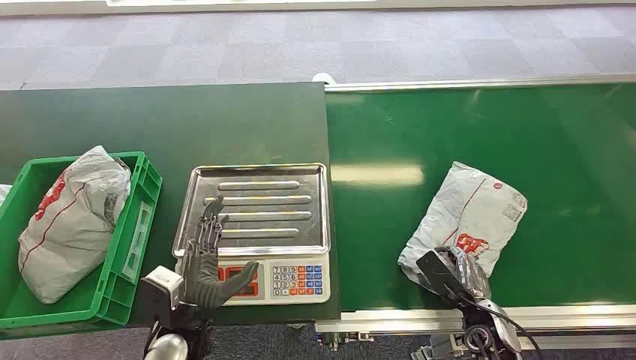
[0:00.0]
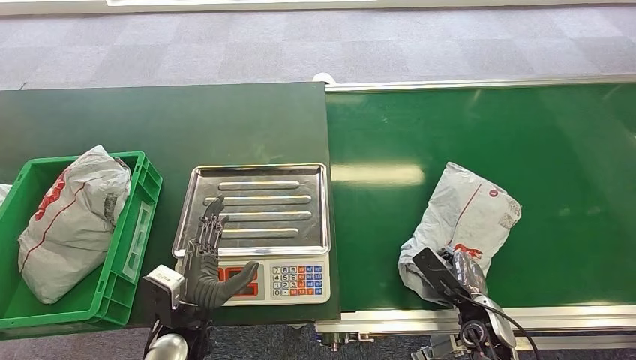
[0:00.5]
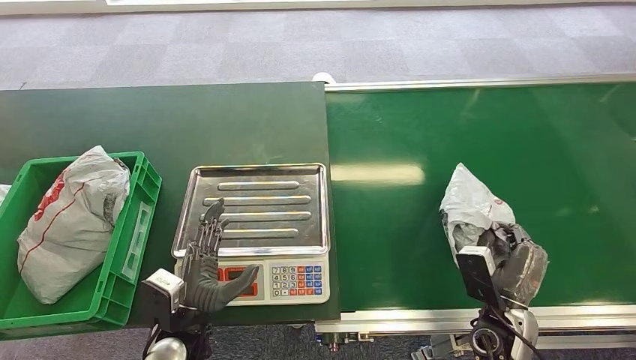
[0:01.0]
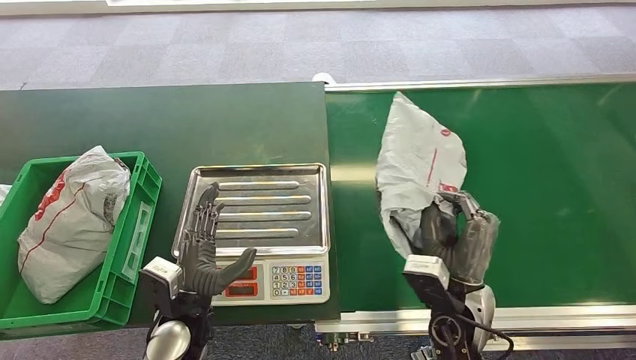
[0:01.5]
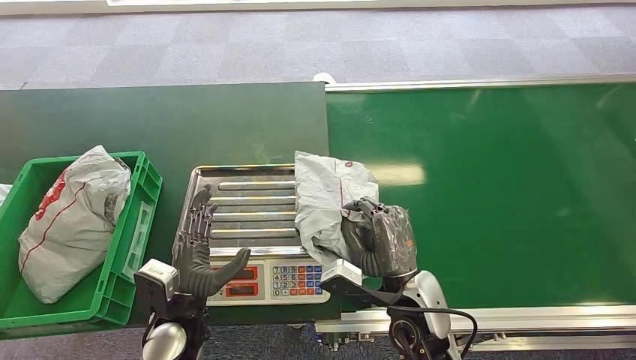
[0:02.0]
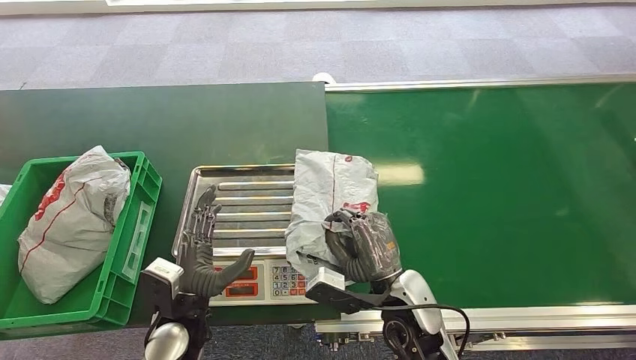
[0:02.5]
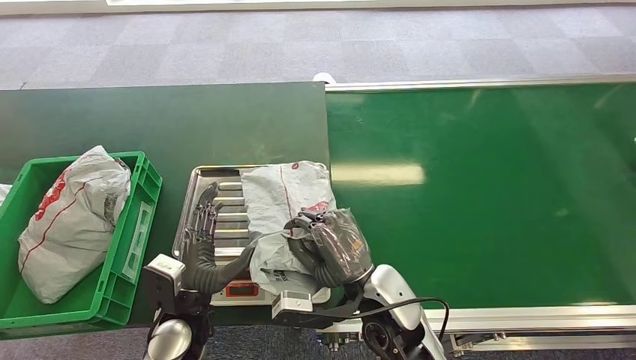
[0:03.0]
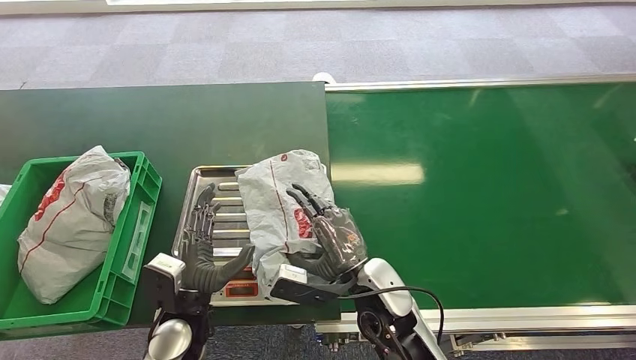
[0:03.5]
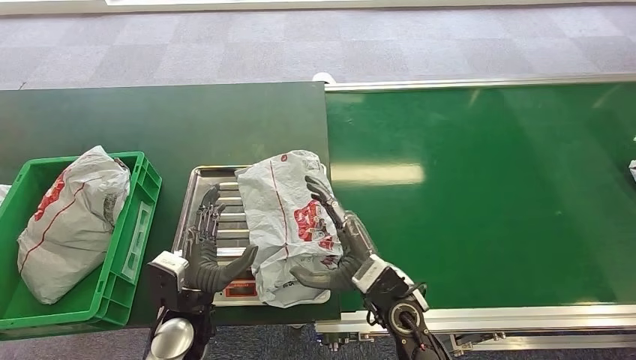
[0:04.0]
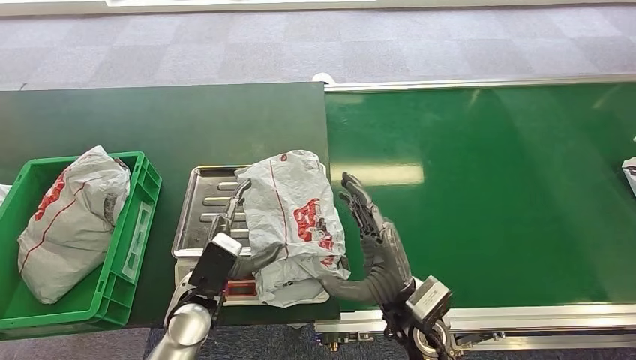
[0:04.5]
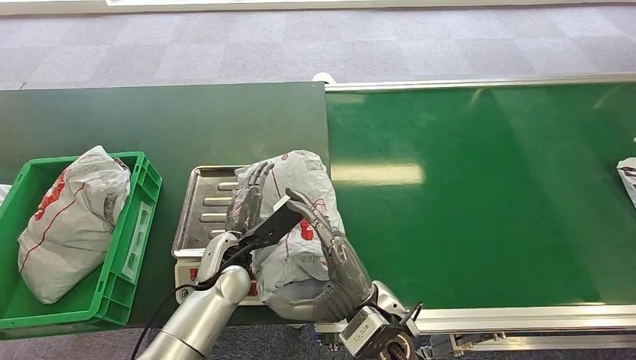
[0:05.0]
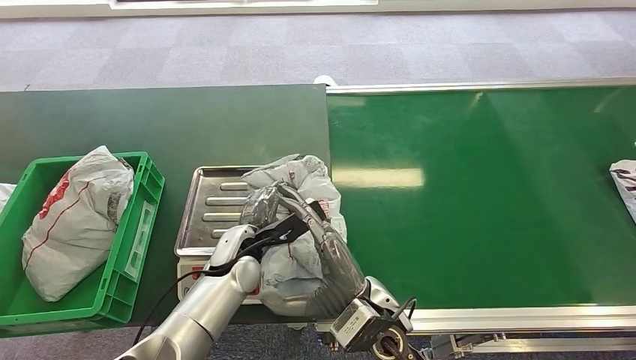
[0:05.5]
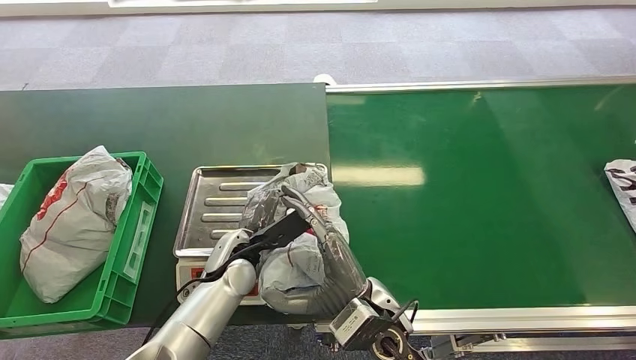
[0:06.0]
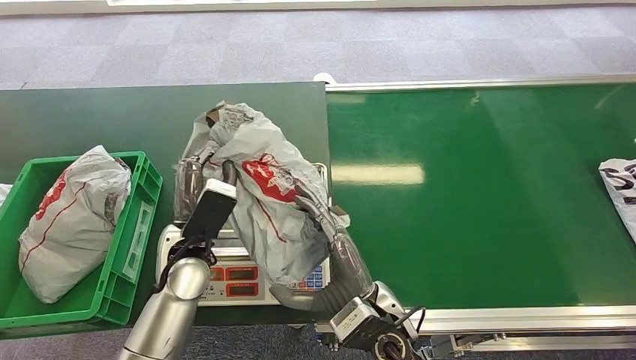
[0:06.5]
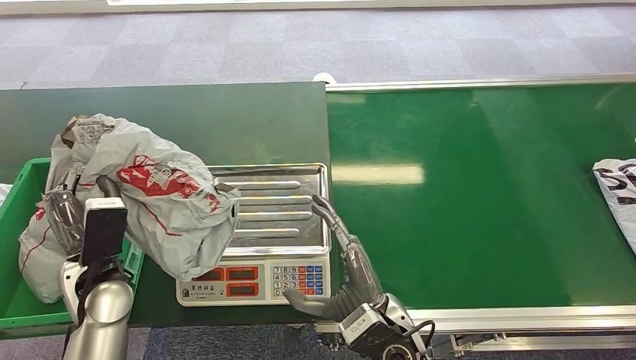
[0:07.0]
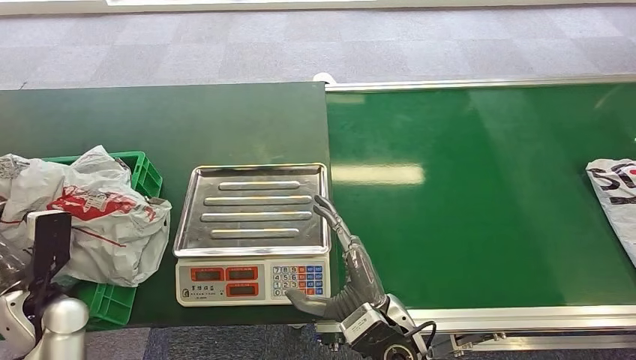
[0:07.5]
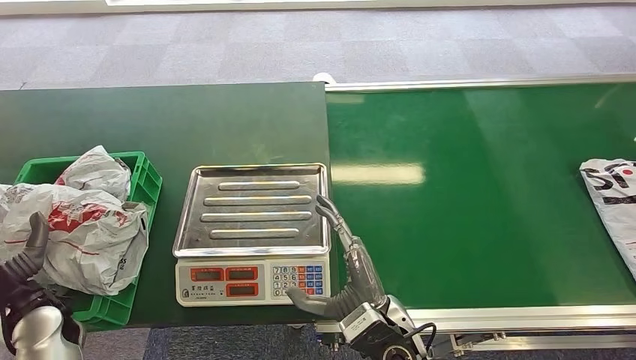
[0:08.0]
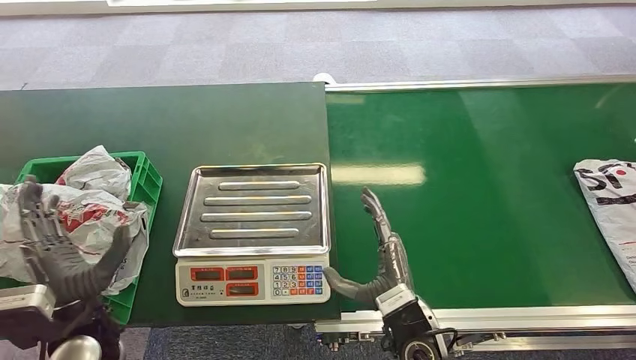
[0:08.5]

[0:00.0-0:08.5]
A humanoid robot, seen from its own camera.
Step, 0:00.0 to 0:01.0: Pick up the package from the conveyor belt.
Step, 0:02.5 to 0:03.5: Place the package onto the inbound machine.
Step, 0:06.0 to 0:07.0: Pick up the package from the inbound machine.
Step, 0:07.5 to 0:08.5: Place the package into the parcel locker.
0:04.0 to 0:06.5: The left hand heads upward and forward, covering about 10 cm.
